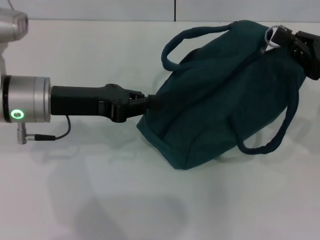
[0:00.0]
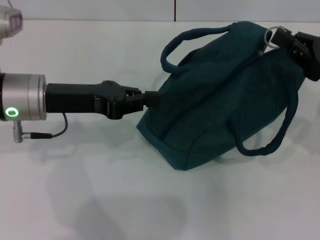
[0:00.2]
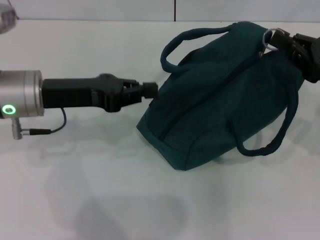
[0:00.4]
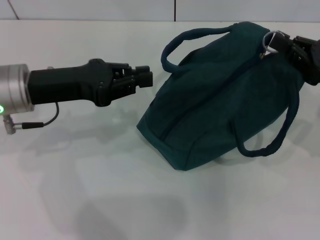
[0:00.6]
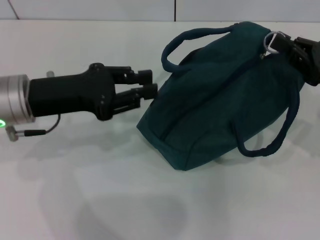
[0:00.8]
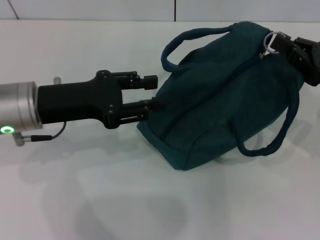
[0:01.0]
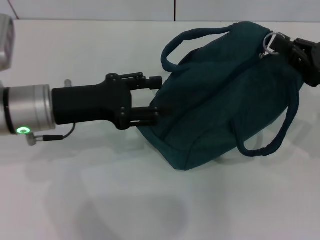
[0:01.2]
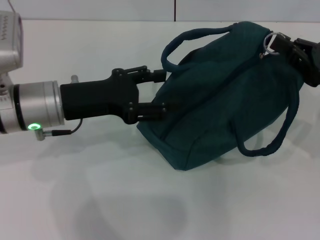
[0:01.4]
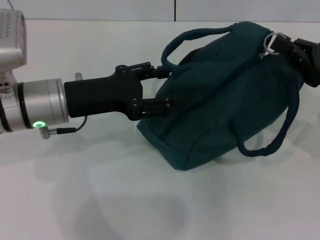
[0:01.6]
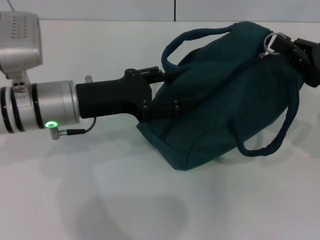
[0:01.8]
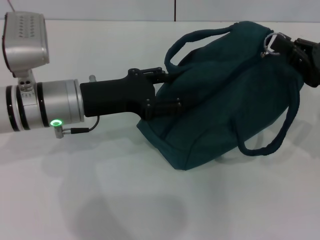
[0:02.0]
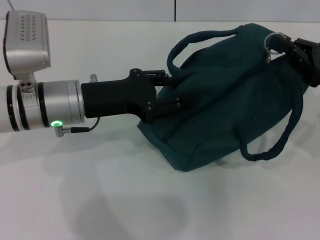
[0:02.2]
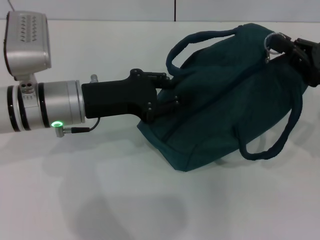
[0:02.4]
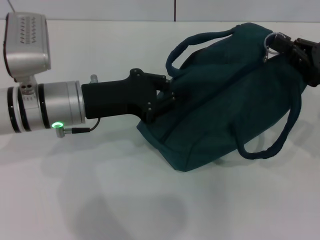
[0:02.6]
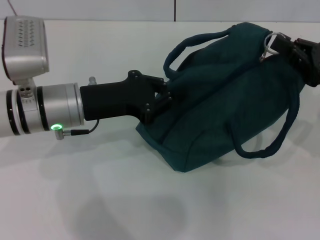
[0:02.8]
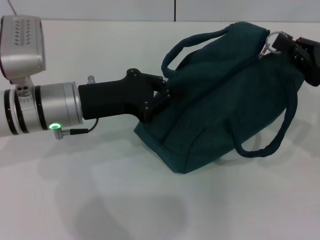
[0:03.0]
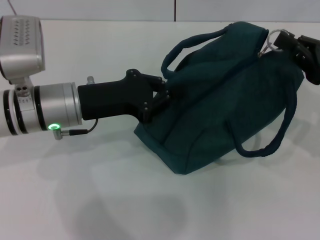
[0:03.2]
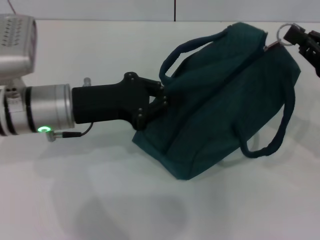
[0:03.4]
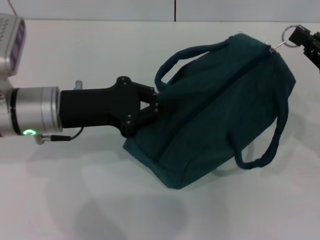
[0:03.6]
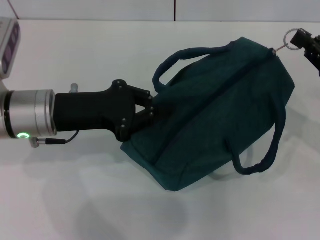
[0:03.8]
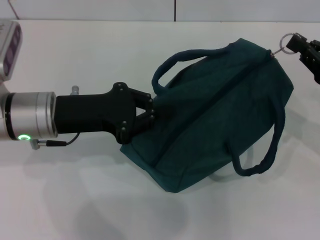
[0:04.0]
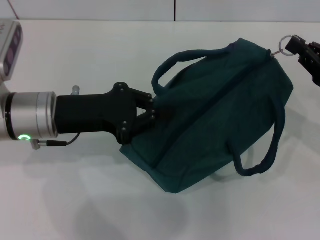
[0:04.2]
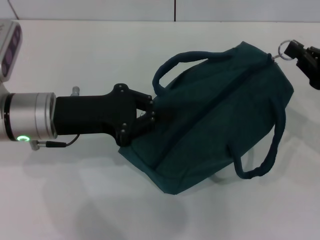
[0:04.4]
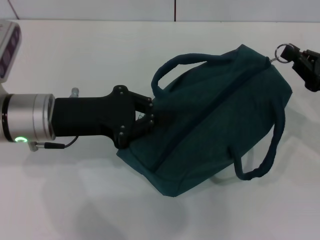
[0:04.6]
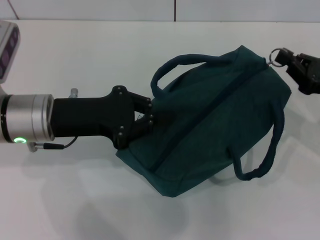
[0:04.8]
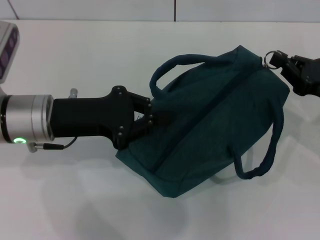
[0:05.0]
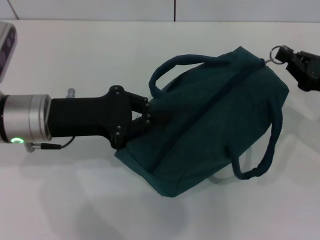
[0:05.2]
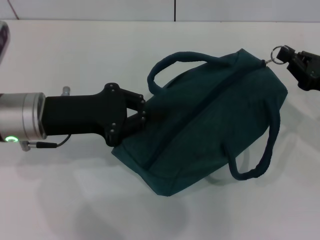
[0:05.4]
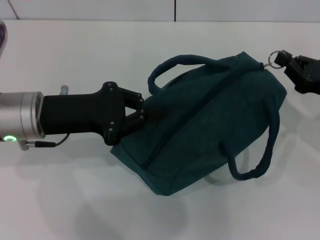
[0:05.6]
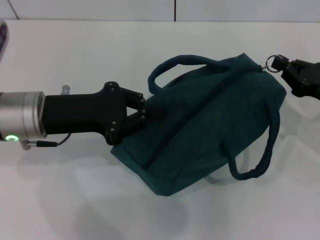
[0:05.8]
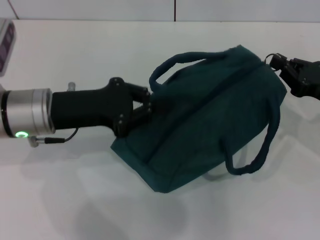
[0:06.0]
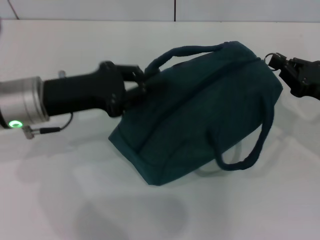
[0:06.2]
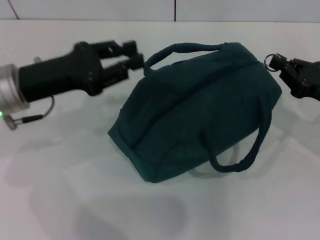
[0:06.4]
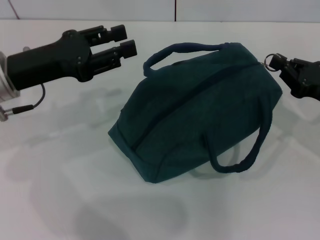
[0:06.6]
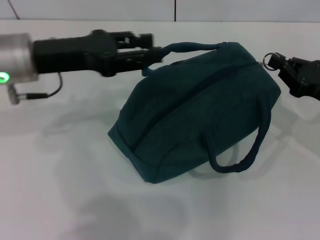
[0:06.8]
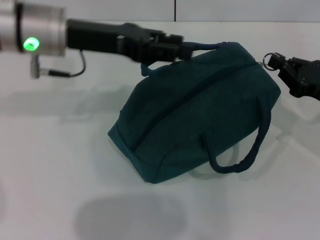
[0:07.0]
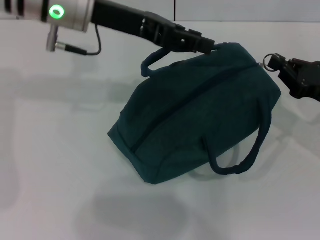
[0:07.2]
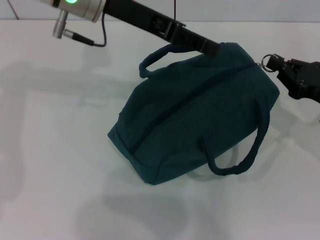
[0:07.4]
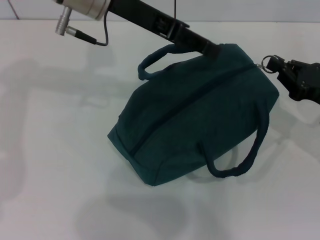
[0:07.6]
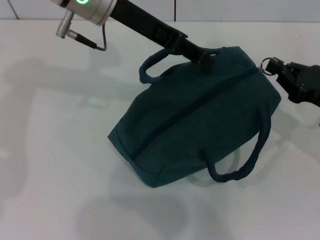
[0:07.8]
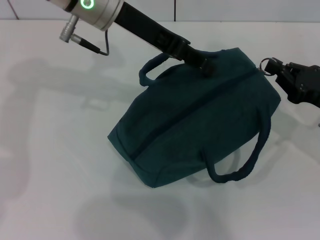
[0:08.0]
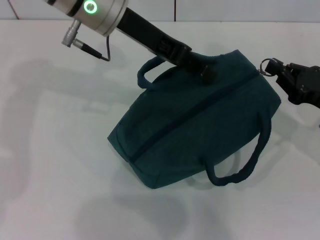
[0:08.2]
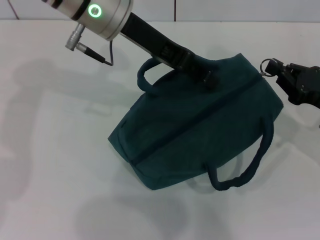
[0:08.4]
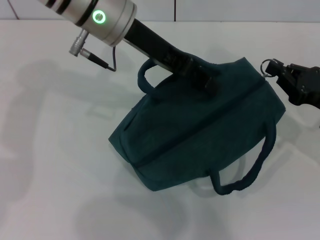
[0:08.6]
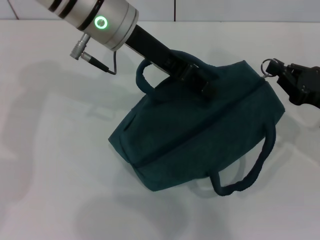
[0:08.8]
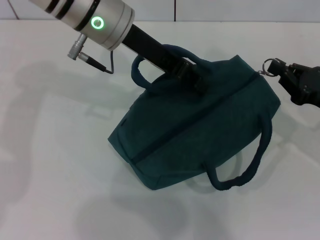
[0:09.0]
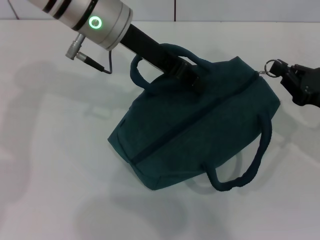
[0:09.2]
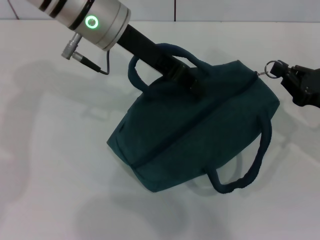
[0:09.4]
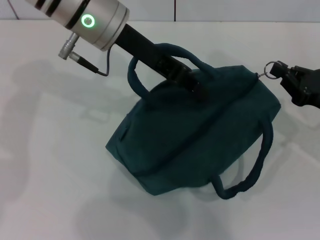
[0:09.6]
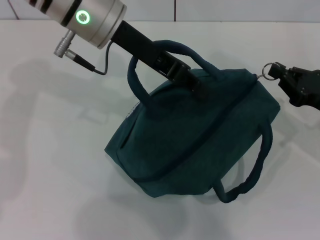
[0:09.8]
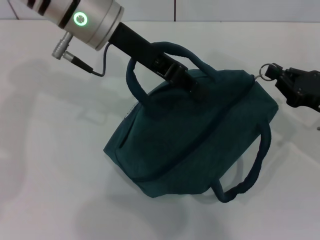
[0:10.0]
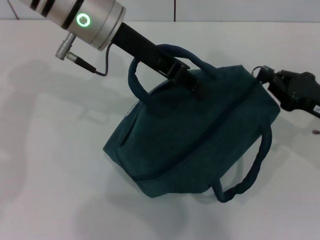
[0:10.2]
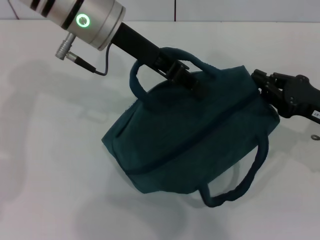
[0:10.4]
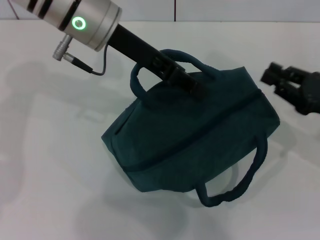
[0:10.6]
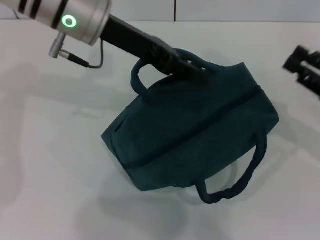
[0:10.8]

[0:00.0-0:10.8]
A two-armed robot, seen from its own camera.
Step, 0:00.0 to 0:10.4: Zip up the lunch bag with your right hand.
0:00.0 to 0:01.6: The left gripper opens up.
0:01.6 to 0:03.0: The left gripper closes.
0:06.2 to 0:07.8: The left gripper shifts about 20 cm upward, forward and to the right, and opens.
0:07.8 to 0:09.2: The left gripper closes up.
0:09.2 to 0:10.8: The grippers move only a little.

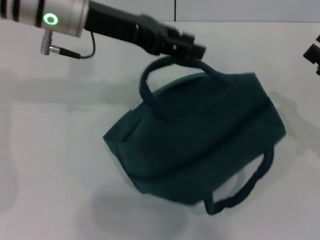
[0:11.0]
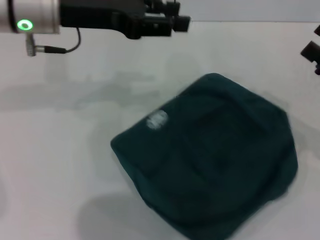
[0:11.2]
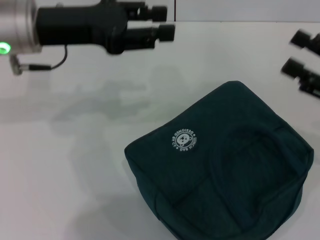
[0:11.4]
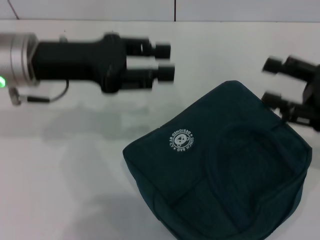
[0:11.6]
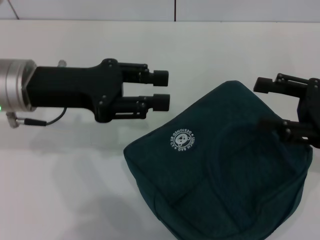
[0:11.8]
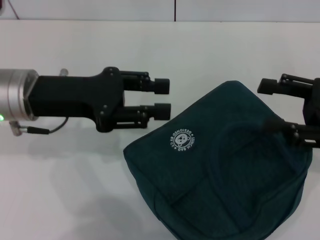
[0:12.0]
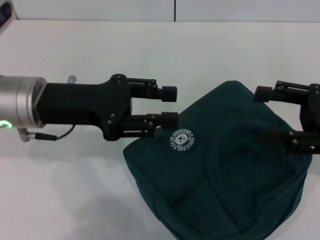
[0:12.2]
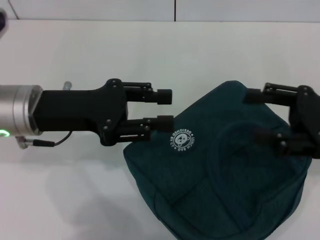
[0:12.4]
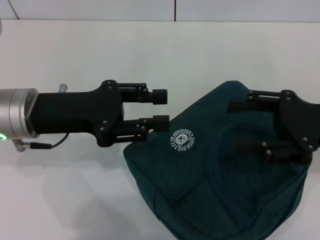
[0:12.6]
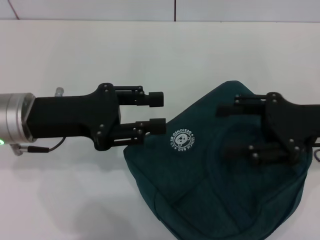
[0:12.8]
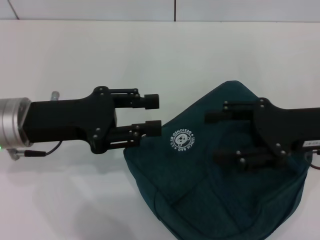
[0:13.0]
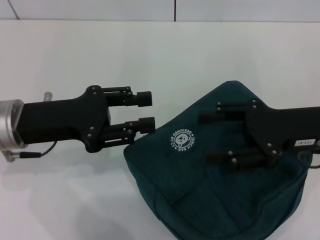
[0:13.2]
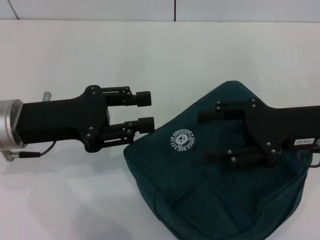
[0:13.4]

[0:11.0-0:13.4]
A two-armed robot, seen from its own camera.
0:11.0 to 0:12.2: The right gripper changes place by approximately 5 cm; the left gripper travels backward and downward by about 10 cm.
0:12.2 to 0:13.4: The right gripper goes approximately 5 cm to the left.

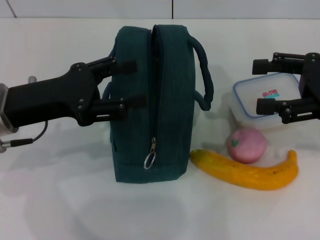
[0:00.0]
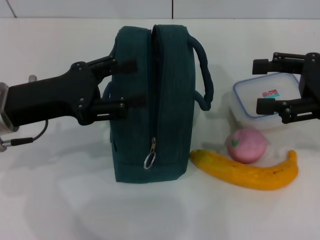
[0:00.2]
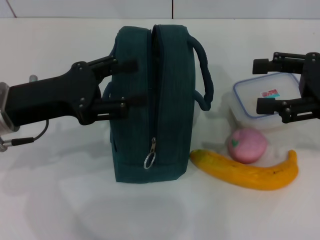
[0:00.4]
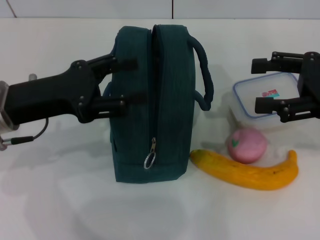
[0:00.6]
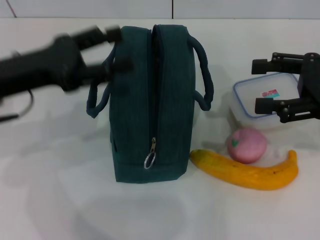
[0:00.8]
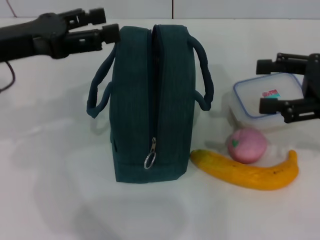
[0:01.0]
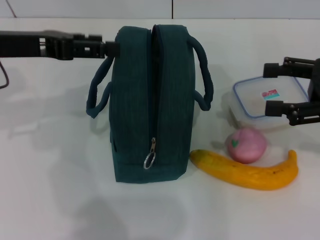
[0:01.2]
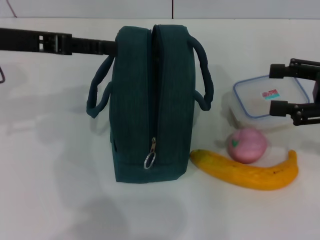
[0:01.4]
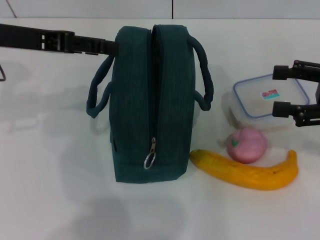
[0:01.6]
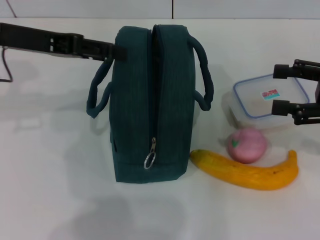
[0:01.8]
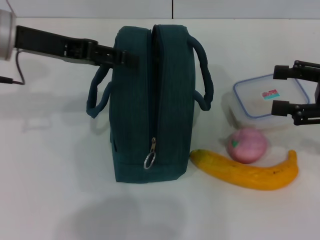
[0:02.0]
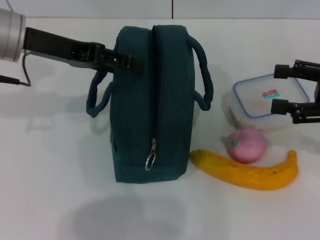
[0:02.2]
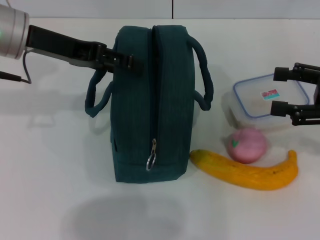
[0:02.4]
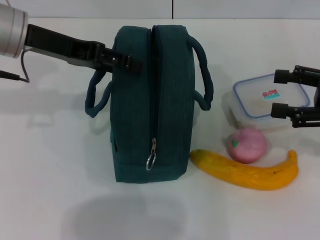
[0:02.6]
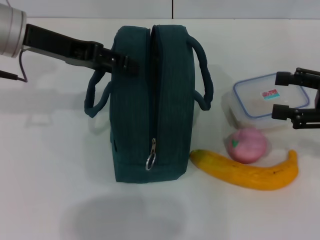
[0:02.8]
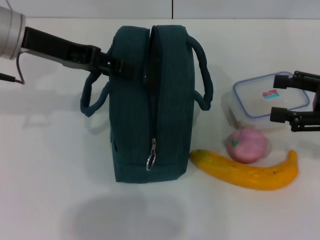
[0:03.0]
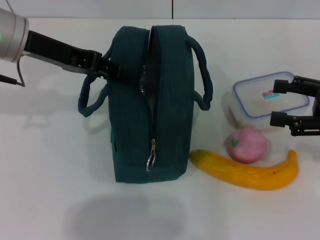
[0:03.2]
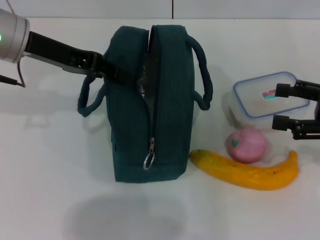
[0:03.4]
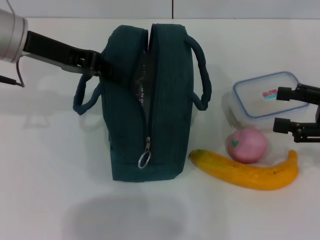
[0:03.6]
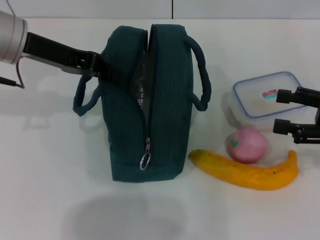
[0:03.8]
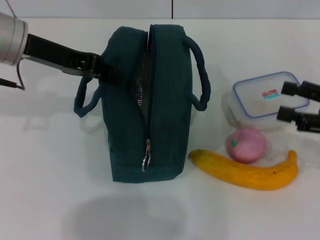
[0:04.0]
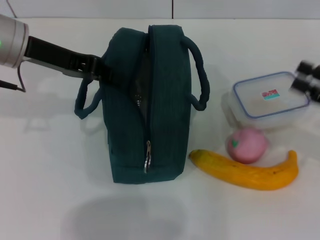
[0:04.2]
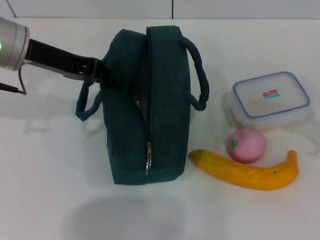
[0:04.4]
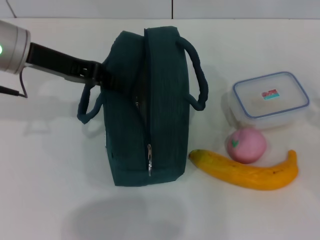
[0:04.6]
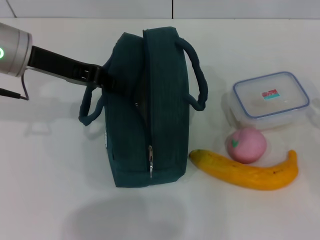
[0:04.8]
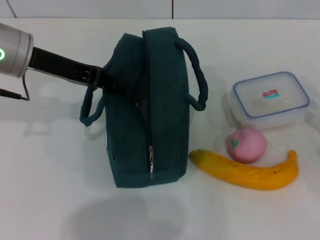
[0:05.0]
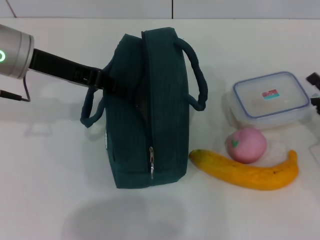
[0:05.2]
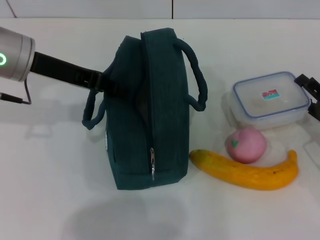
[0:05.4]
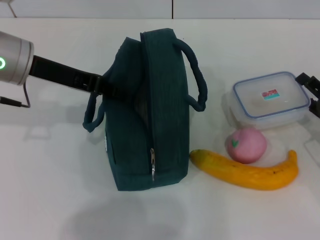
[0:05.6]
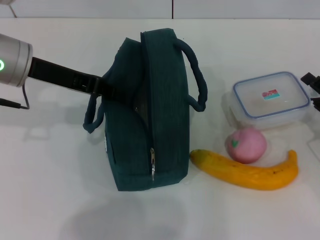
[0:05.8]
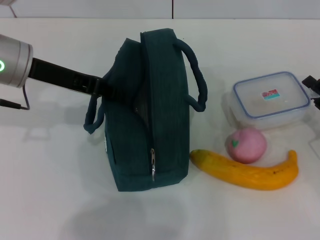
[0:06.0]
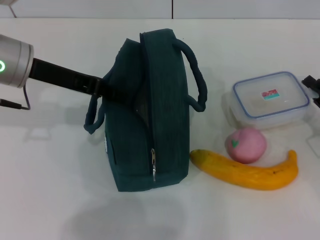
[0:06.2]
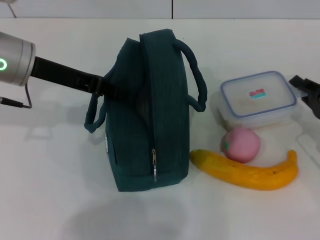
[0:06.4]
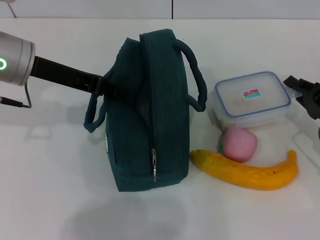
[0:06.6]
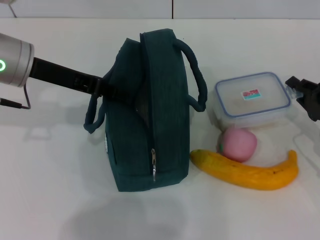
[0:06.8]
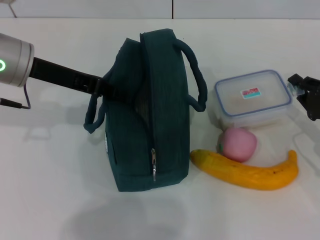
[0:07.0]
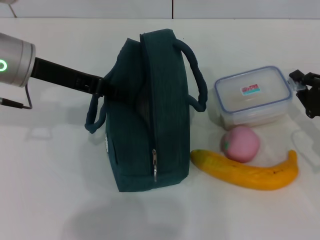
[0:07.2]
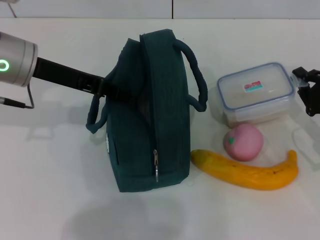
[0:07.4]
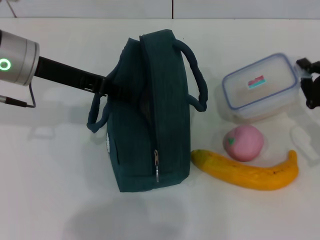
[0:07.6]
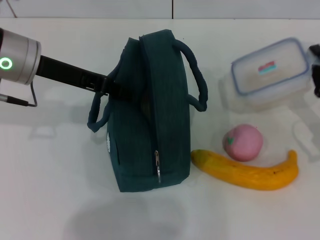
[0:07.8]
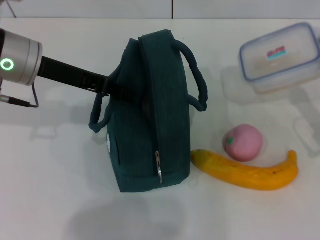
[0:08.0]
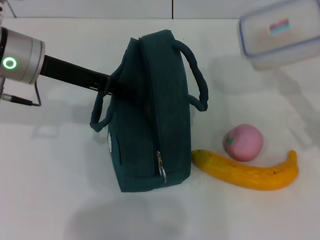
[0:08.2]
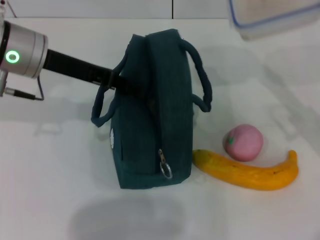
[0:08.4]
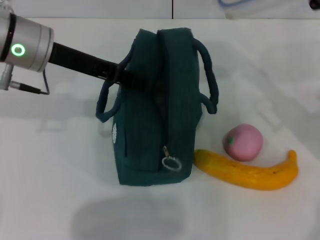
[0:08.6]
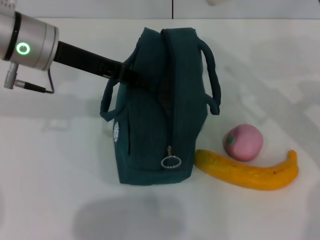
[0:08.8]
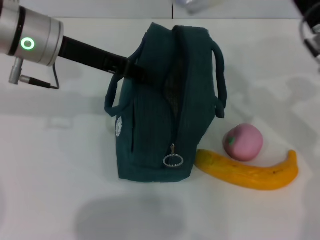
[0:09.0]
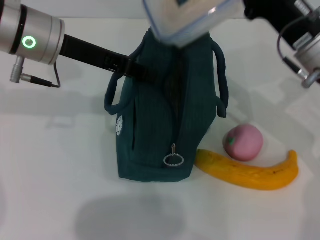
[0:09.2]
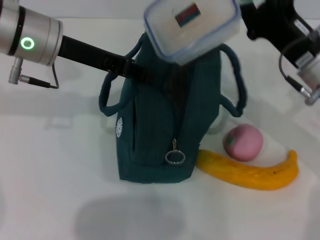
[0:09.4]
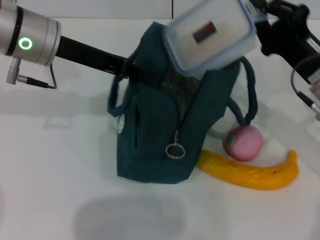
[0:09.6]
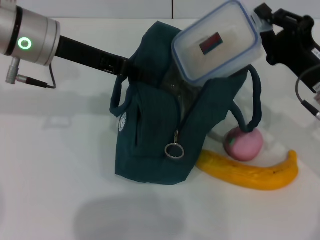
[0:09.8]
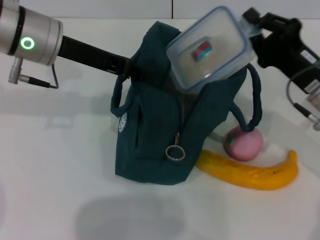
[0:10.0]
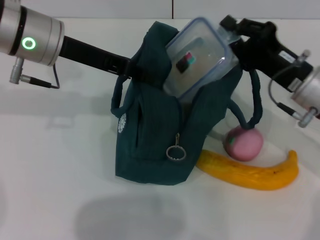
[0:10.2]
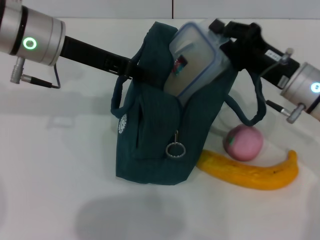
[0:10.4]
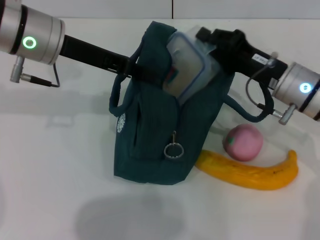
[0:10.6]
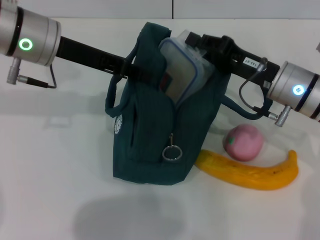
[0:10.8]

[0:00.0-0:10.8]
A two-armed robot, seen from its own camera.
Step, 0:00.0 to 0:04.6: Hold the lunch bag with your left hand.
Step, 0:04.8 to 0:07.0: Pick up the lunch box with your right hand.
0:00.0 to 0:01.6: The left gripper travels upward and forward by some 10 cm.
0:01.6 to 0:03.0: The grippers stay close to where they were, moving slightly.
0:03.0 to 0:04.6: The right gripper heads downward, covering some 10 cm. The left gripper closes up.
0:04.6 to 0:06.2: The right gripper ends up roughly 5 cm from where it was, and closes its fingers.
0:06.2 to 0:07.8: The right gripper closes.
0:07.8 to 0:09.2: The right gripper is displaced to the left, upward and forward by about 15 cm.
